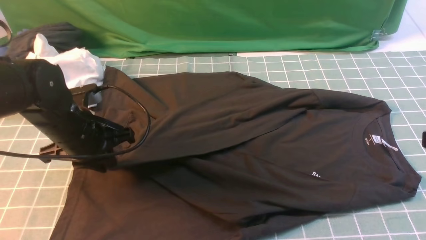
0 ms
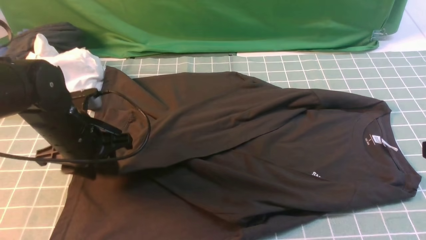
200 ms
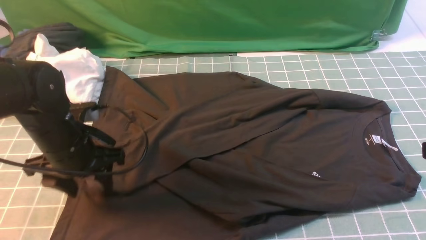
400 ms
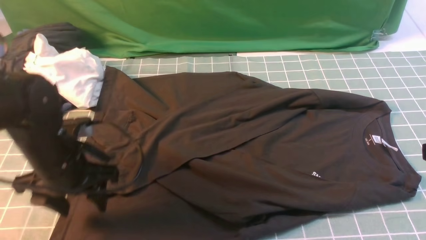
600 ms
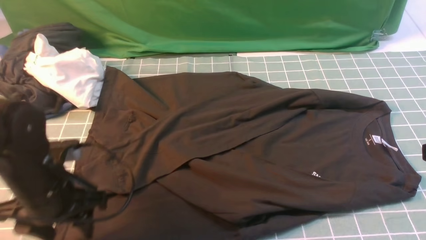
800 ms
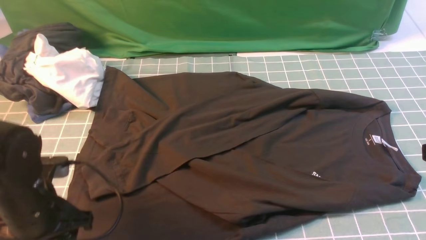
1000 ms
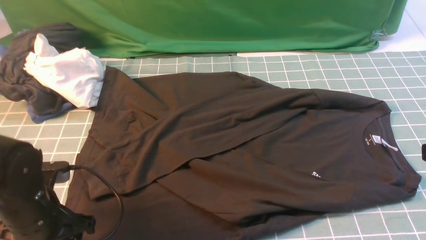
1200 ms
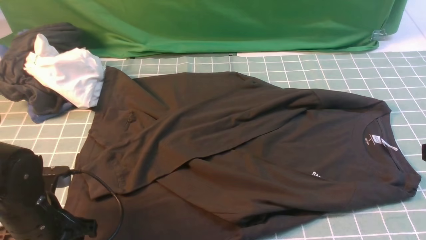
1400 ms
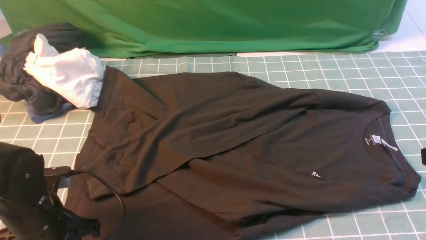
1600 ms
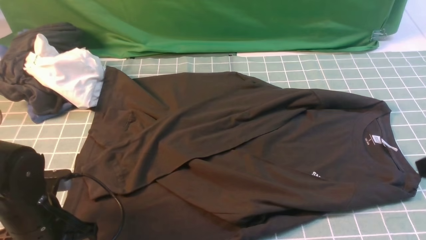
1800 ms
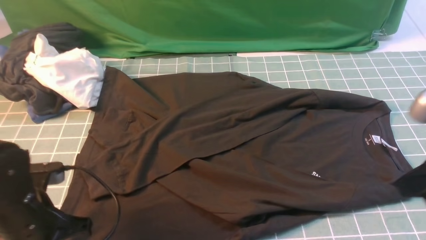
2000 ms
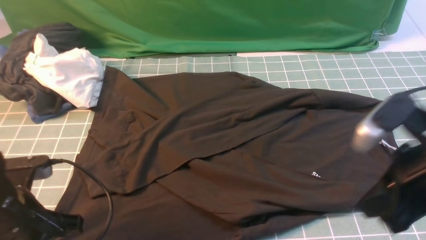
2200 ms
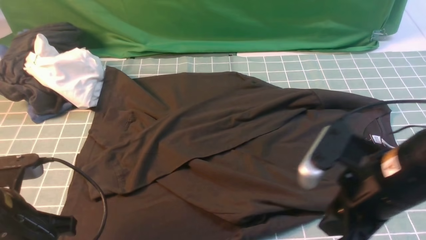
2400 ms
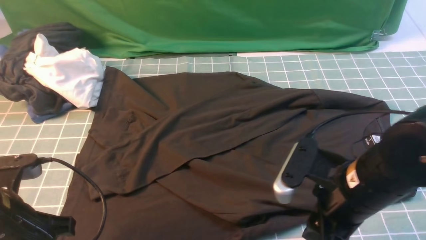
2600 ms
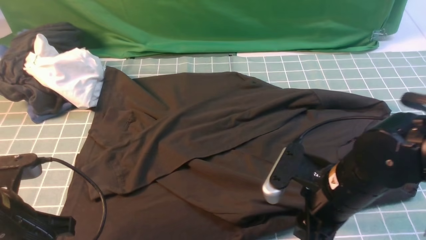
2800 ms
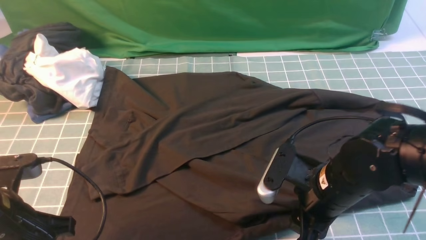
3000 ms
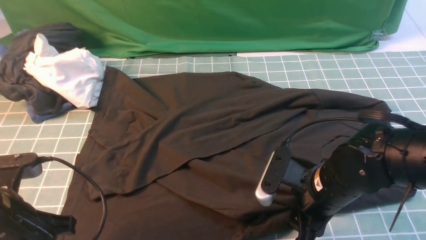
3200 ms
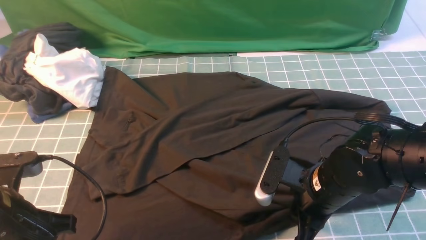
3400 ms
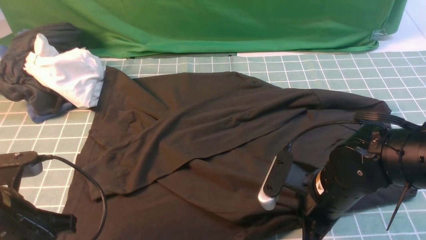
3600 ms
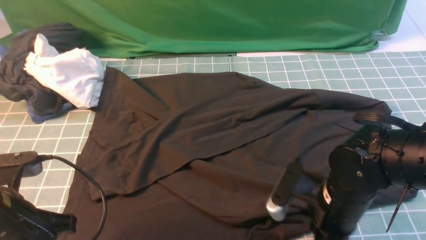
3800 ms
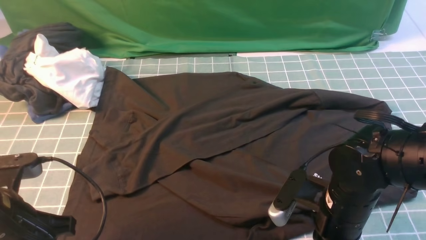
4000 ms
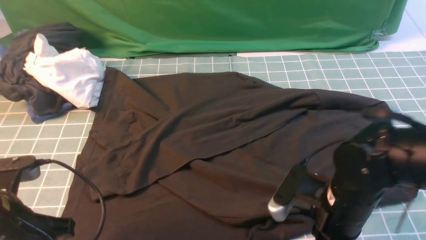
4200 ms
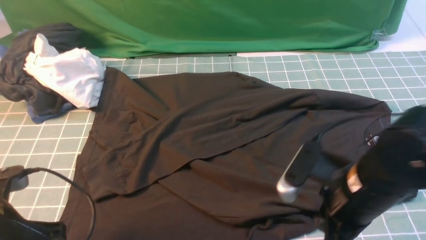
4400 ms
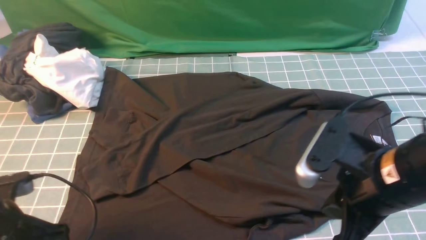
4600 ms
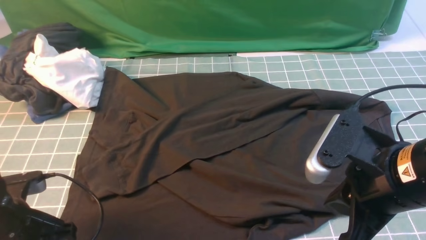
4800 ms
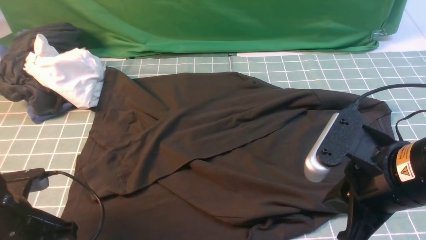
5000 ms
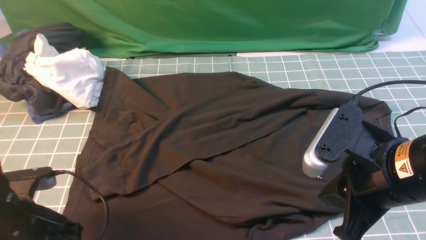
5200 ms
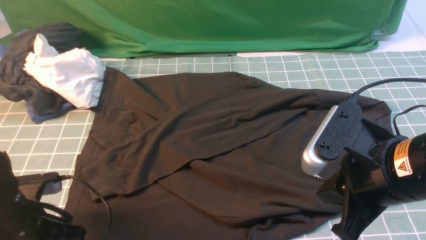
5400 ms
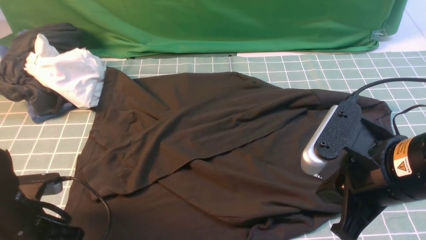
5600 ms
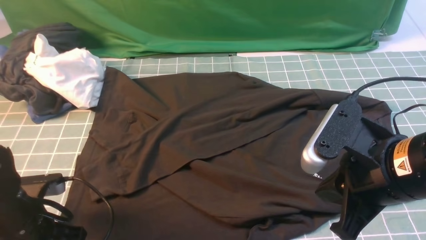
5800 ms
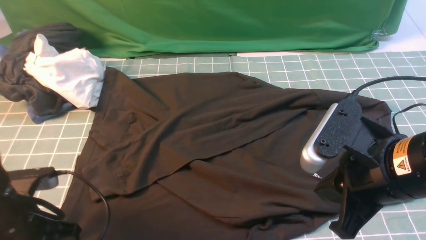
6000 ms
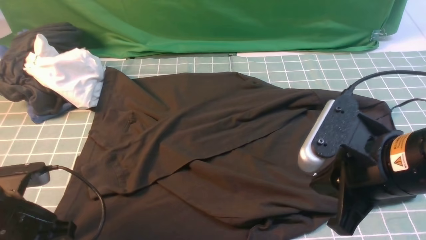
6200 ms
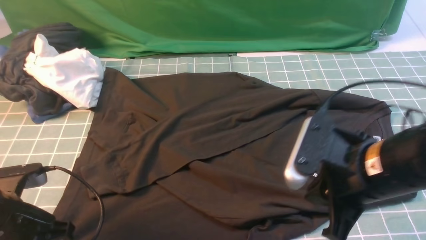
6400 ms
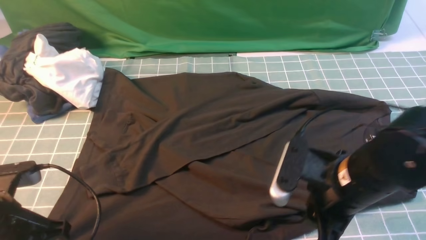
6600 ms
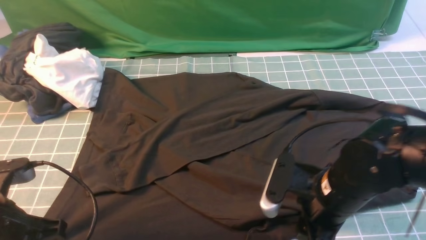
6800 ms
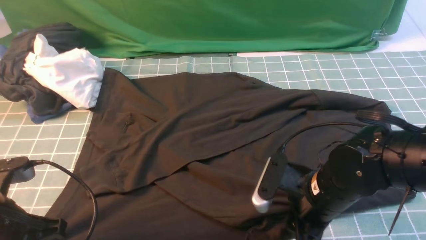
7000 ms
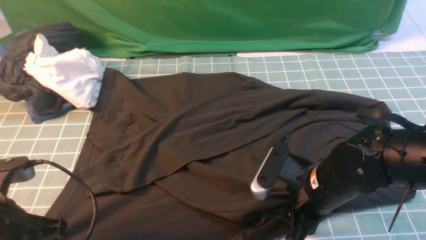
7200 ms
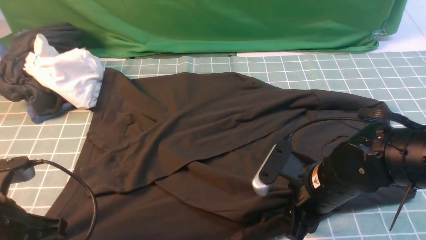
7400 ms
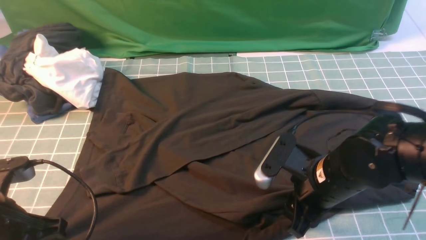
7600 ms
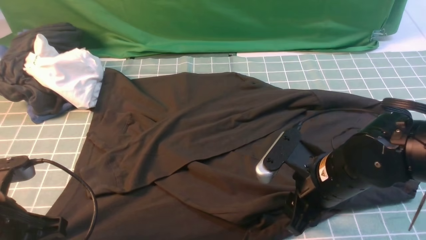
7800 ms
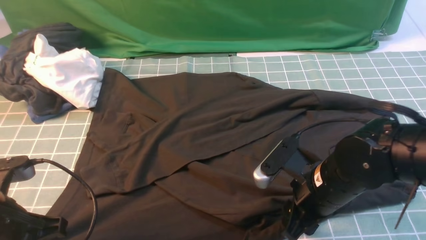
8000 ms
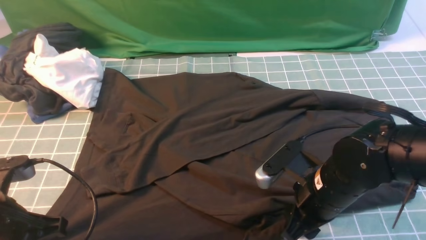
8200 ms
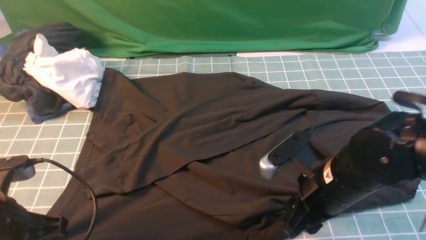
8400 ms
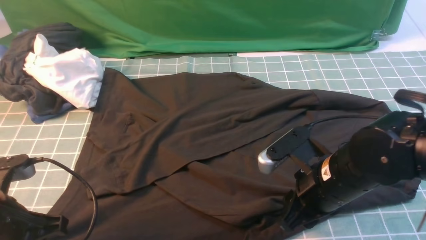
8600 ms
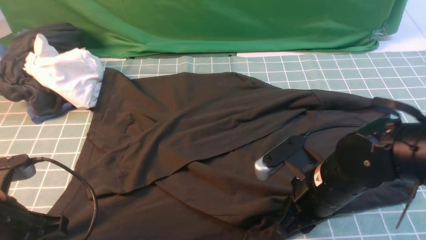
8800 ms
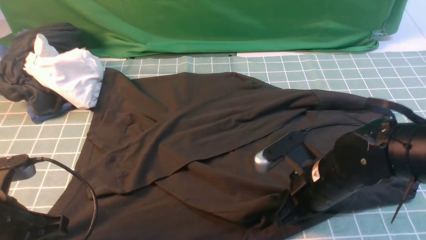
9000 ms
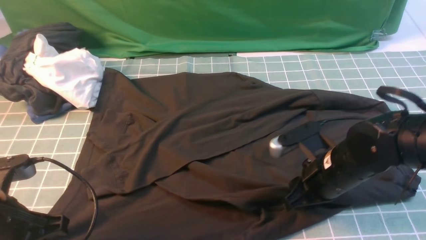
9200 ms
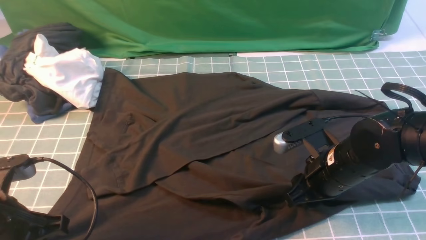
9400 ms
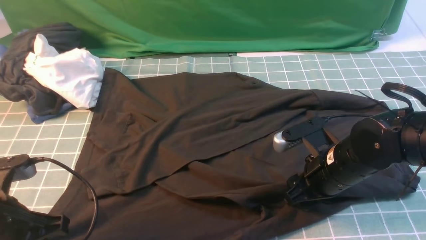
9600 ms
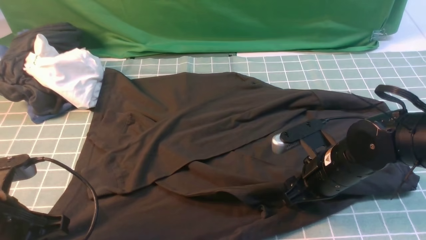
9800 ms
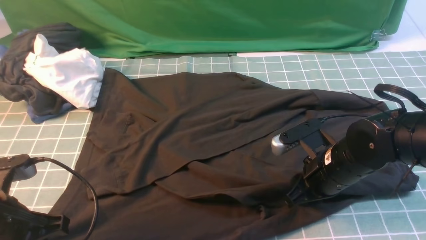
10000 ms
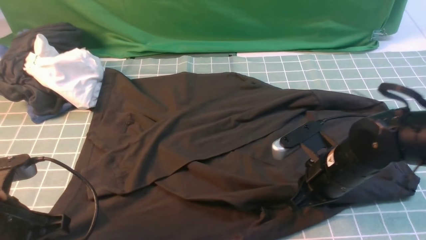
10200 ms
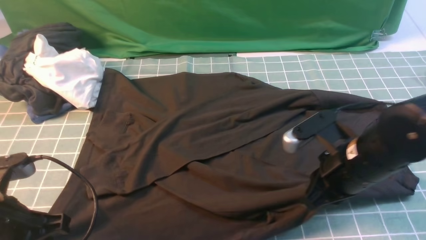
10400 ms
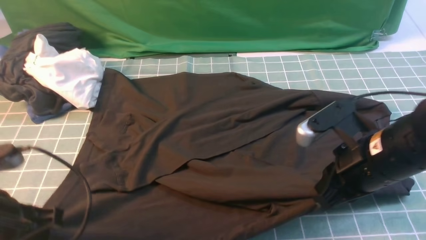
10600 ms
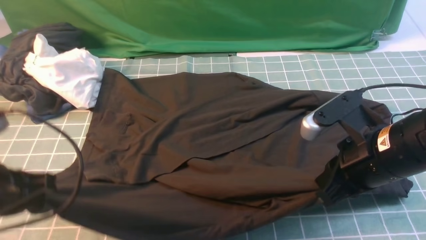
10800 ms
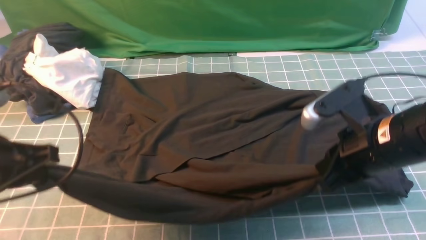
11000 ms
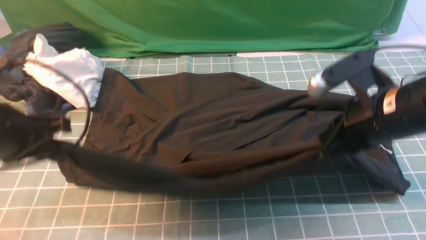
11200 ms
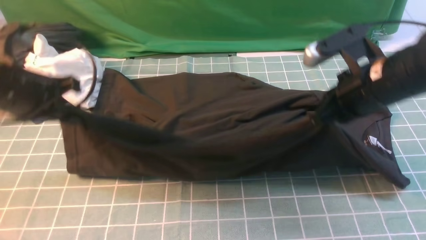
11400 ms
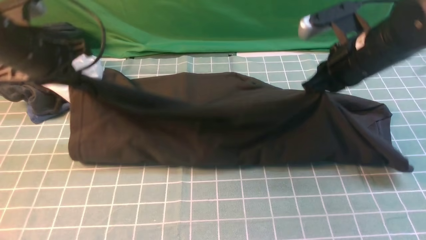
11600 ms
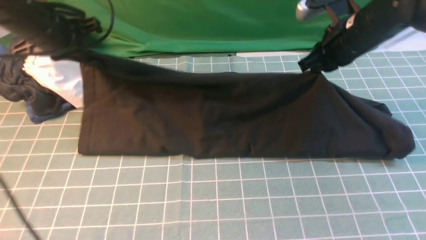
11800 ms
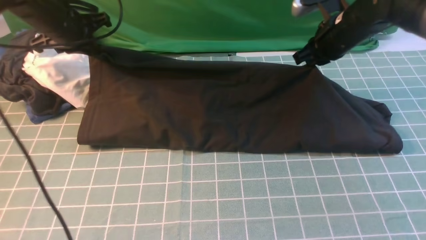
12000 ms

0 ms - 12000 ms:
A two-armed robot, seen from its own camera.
Step, 800 ms - 10600 ms: use both arms simultaneously to clamp the lower edge of the clothing fabric.
0 ms - 1600 ms: The left gripper shifts roughly 10 cm backward, and opens and closes again.
1600 ms - 3000 ms: The right gripper shifts some 20 cm to the left, downward and forward, and opens, while the left gripper heads upward, covering approximately 5 cm, and closes.
3000 ms - 4400 ms: The right gripper shifts by about 5 cm, and closes its fingers.
4400 ms - 6000 ms: The left gripper opens, then closes once more. Meanwhile the right gripper heads upward, covering roughly 5 cm.
6000 ms - 7600 ms: The right gripper moves downward, about 10 cm, and opens up.
9000 ms - 10400 ms: The right gripper shifts by some 5 cm, and closes.
10400 ms - 12000 ms: Both grippers move forward, about 25 cm.

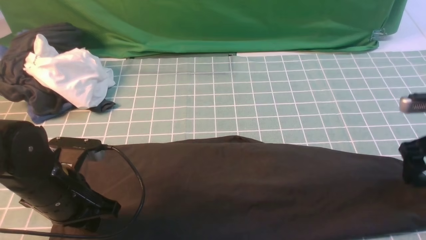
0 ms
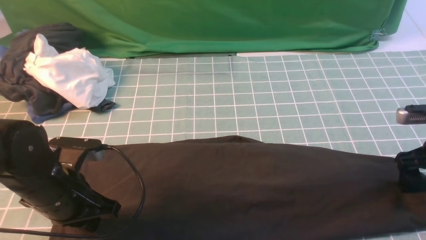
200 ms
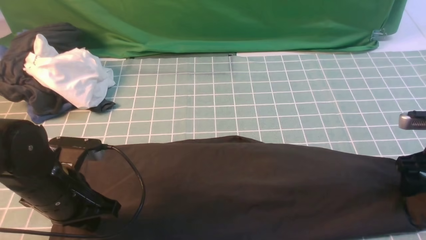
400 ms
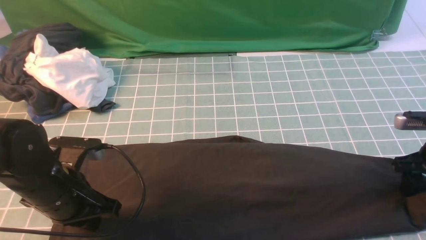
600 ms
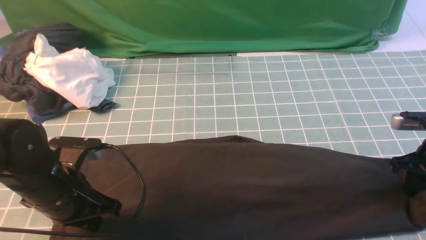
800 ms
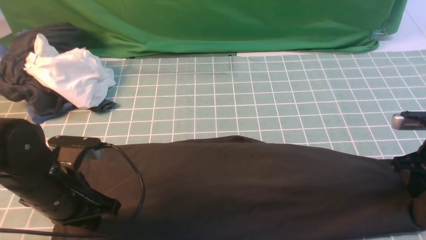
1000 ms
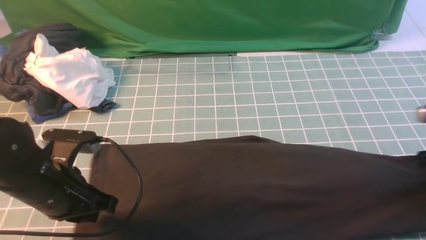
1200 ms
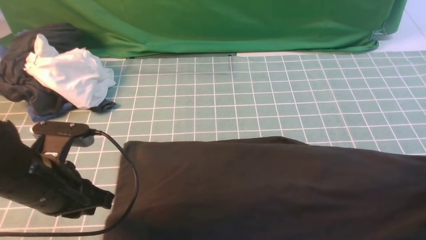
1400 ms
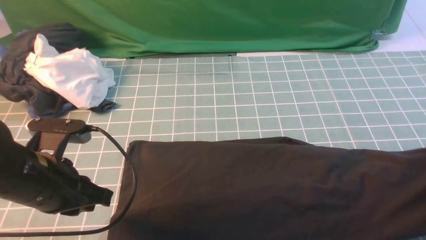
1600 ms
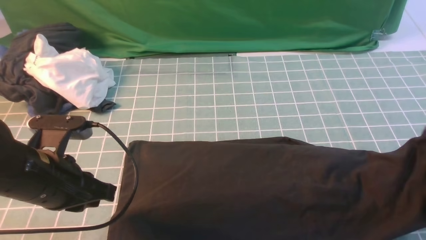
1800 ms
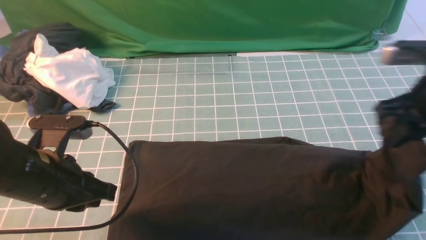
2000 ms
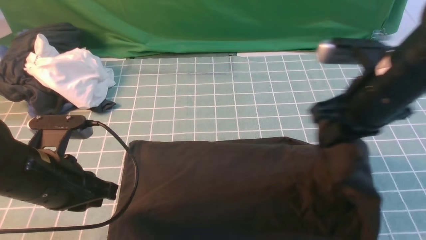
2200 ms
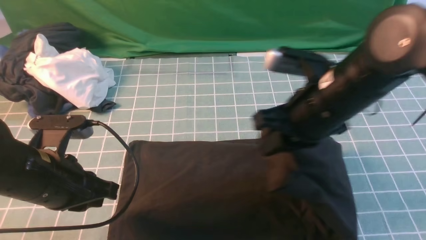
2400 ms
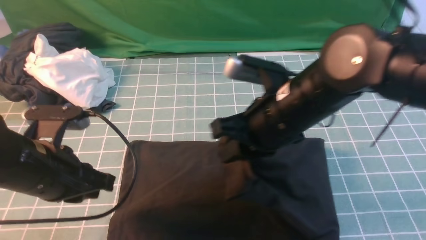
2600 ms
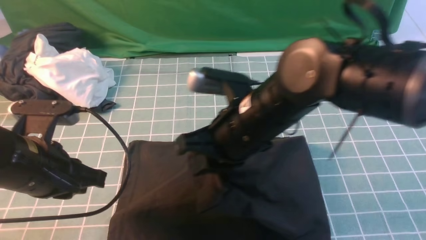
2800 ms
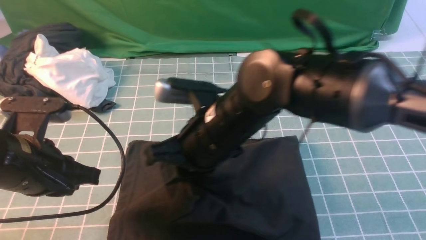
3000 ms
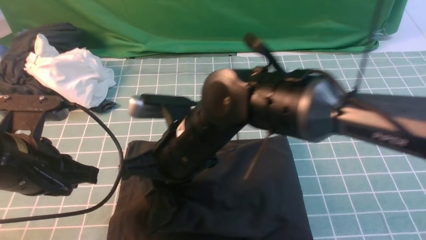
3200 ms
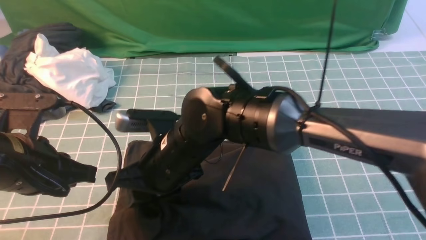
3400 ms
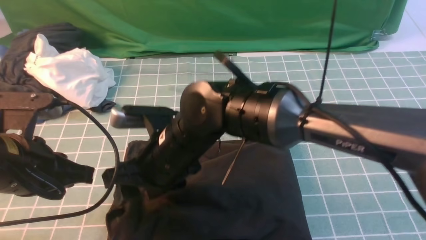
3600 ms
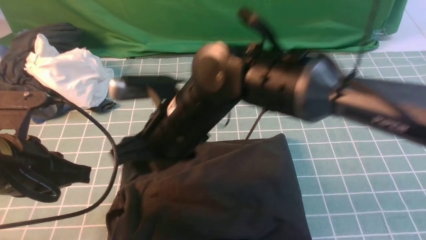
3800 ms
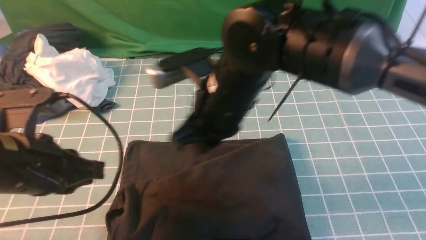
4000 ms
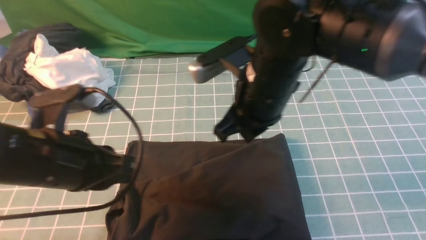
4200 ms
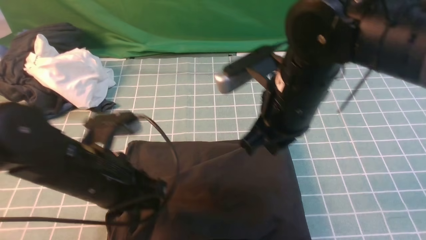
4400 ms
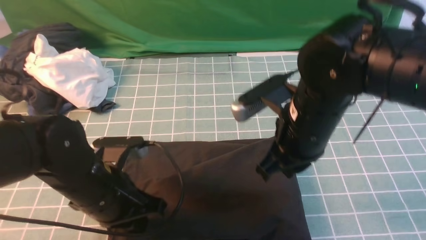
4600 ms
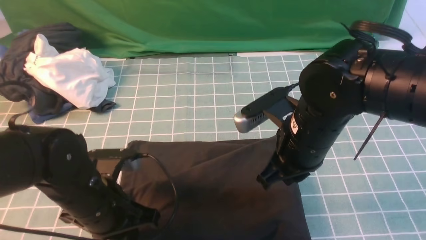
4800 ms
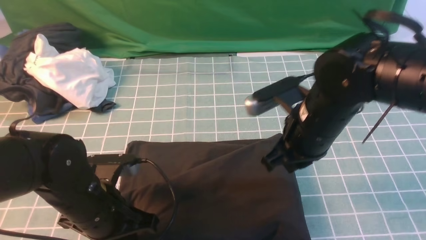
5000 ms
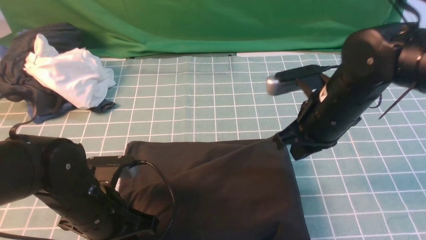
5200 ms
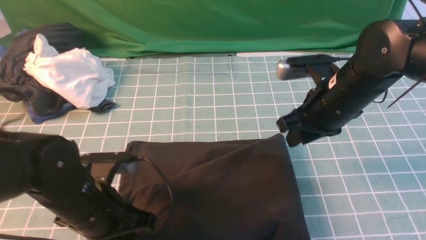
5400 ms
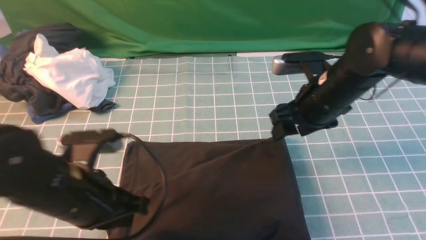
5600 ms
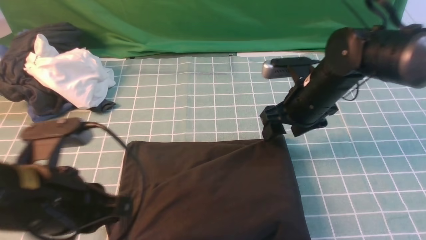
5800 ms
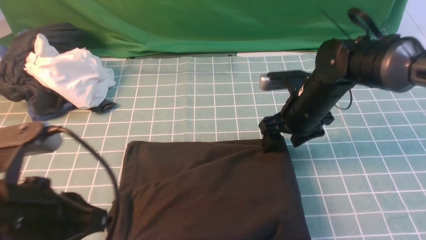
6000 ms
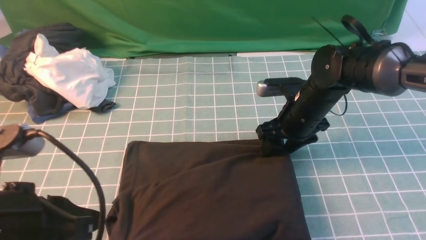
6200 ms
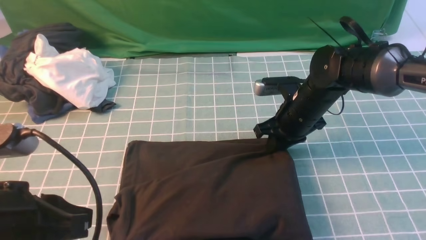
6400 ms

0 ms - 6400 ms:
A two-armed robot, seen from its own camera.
Step, 0 ms - 1600 ms: use the right arm to clamp the right edge of the fabric.
Step, 1800 ms - 4000 ms: use the right arm to drag the right edge of the fabric to the left and folds it over the left edge.
0 ms - 1600 ms: The right gripper is displaced upward by about 5 cm, and closes its fingers.
1600 ms - 3200 ms: The right gripper is displaced to the left by approximately 40 cm.
3200 ms - 4800 ms: The right gripper travels to the right by roughly 15 cm, and opens, then closes again, while the left gripper goes some 10 cm downward and to the right.
4800 ms - 6400 ms: The right gripper travels forward and downward by roughly 15 cm, and opens and closes again. Meanwhile the left gripper travels upward and backward by roughly 15 cm.
